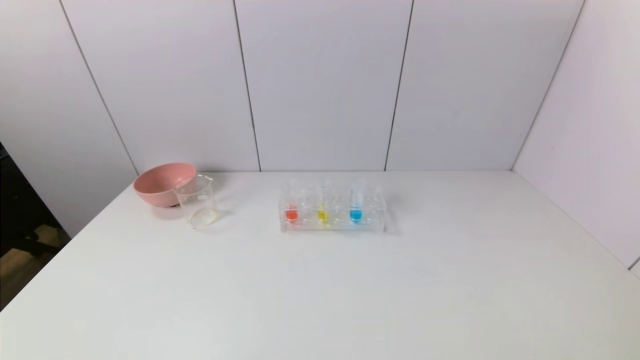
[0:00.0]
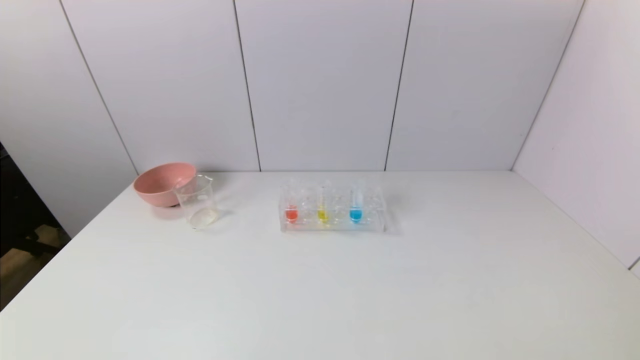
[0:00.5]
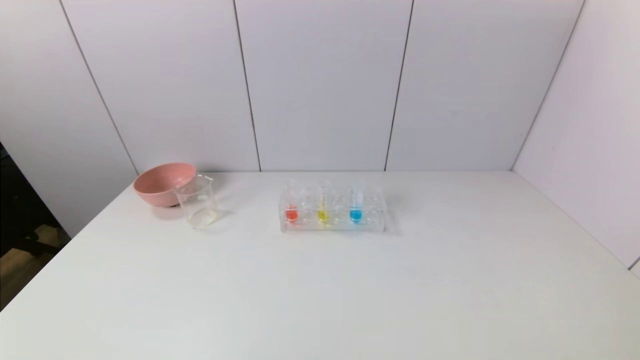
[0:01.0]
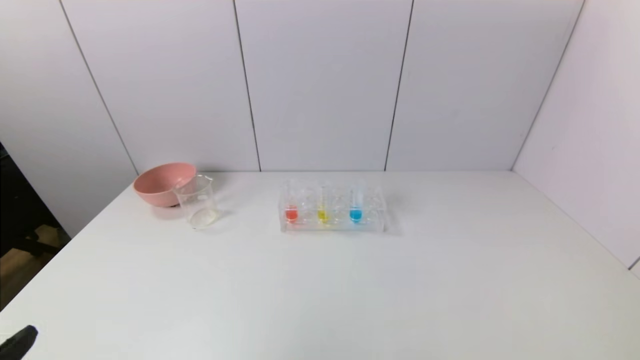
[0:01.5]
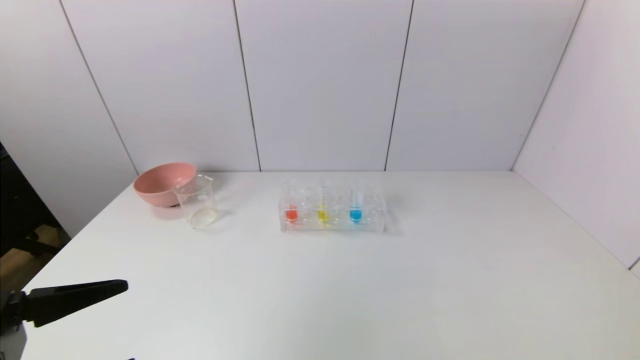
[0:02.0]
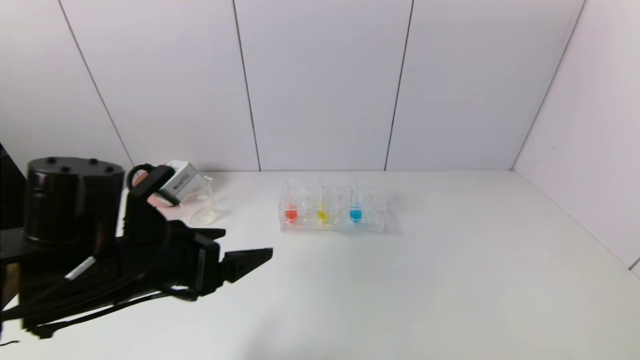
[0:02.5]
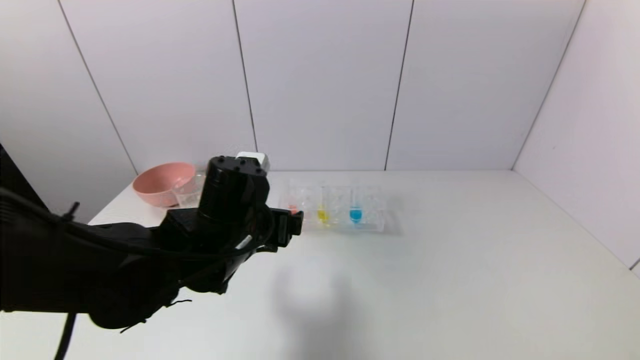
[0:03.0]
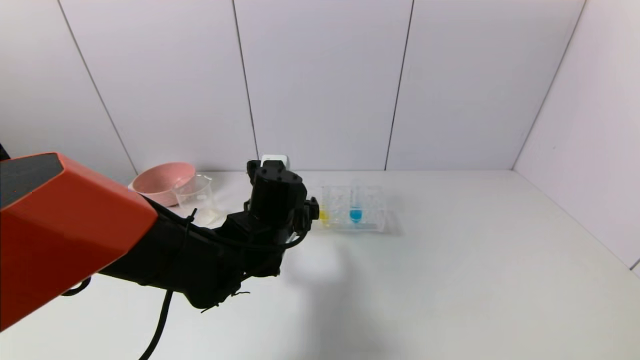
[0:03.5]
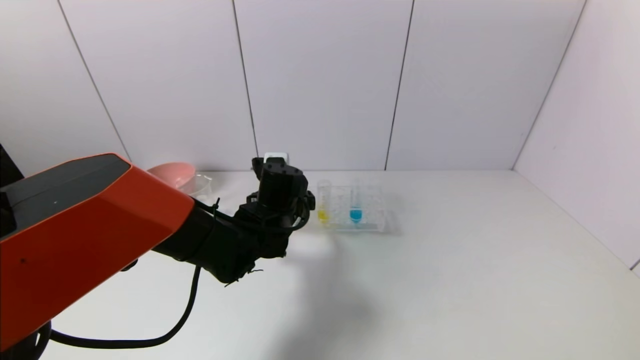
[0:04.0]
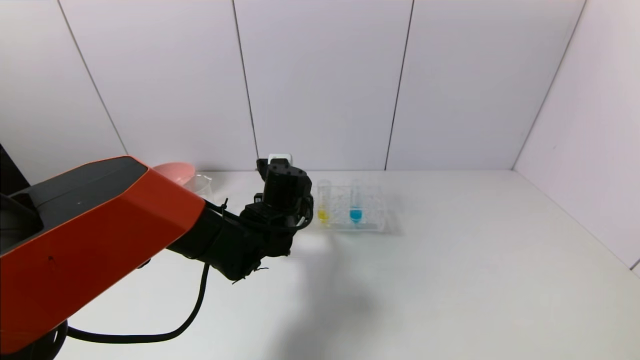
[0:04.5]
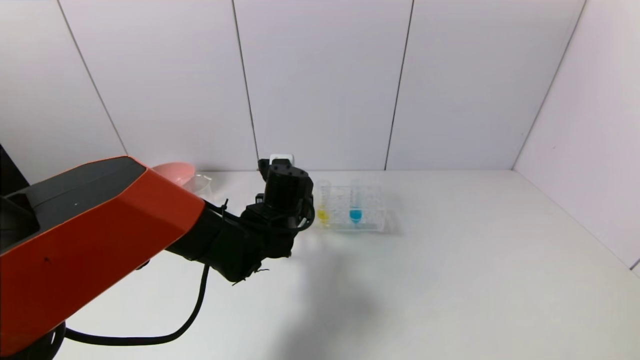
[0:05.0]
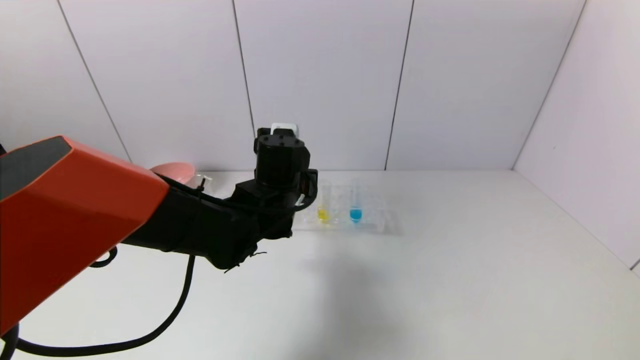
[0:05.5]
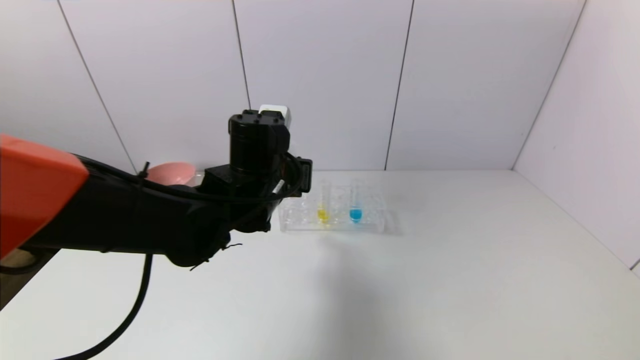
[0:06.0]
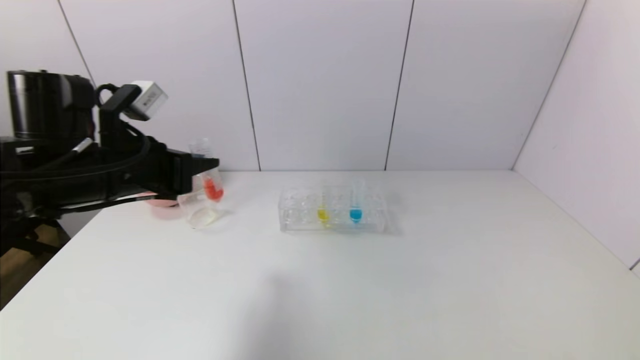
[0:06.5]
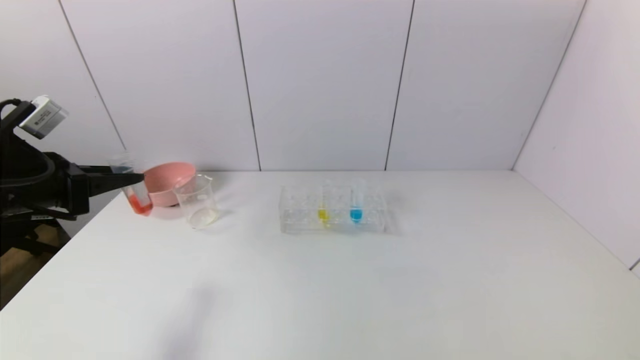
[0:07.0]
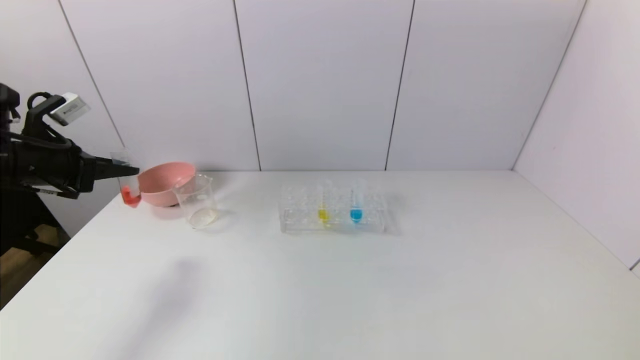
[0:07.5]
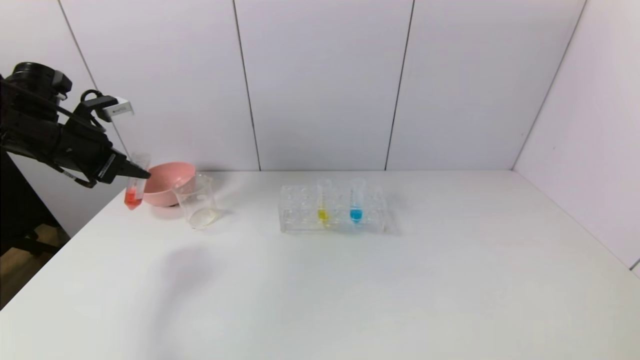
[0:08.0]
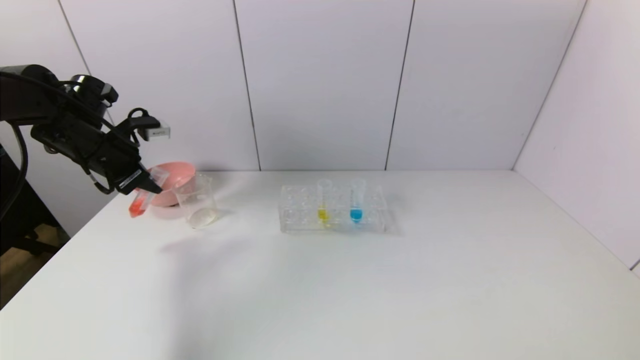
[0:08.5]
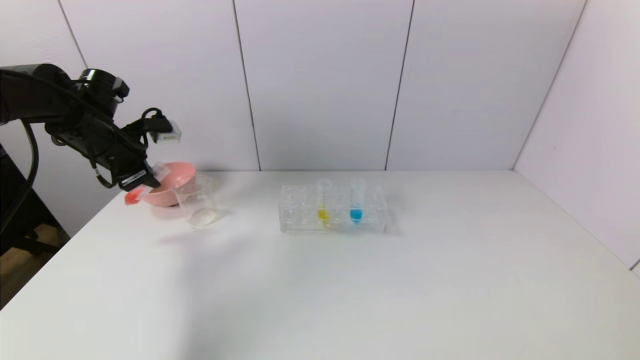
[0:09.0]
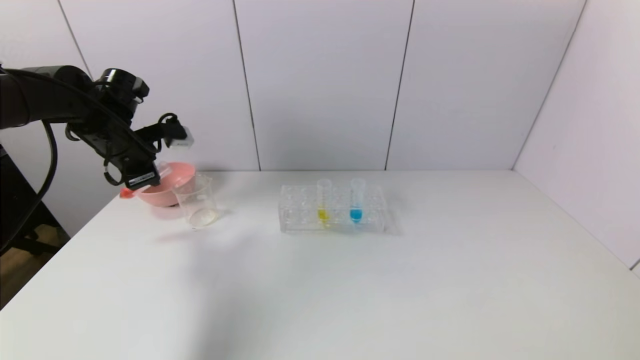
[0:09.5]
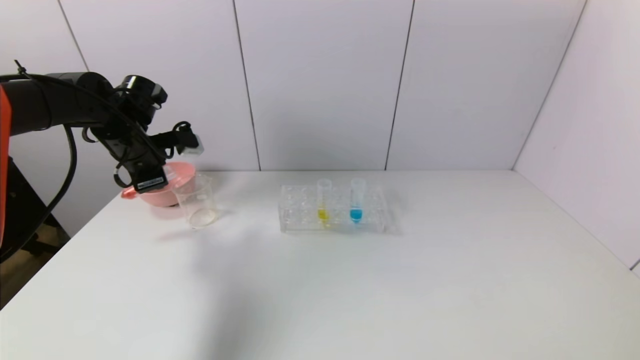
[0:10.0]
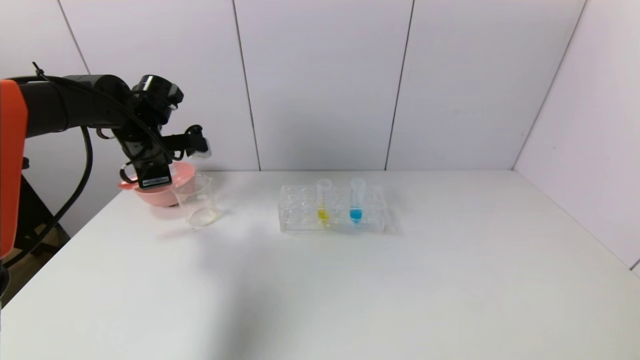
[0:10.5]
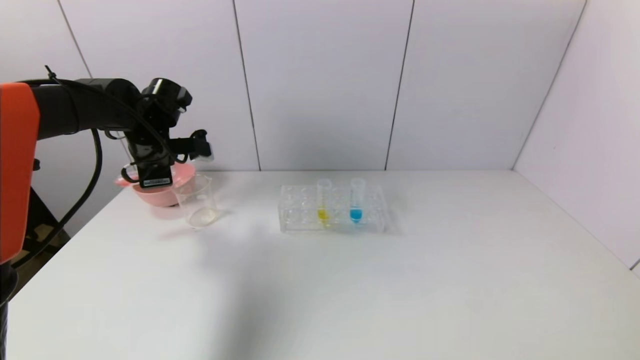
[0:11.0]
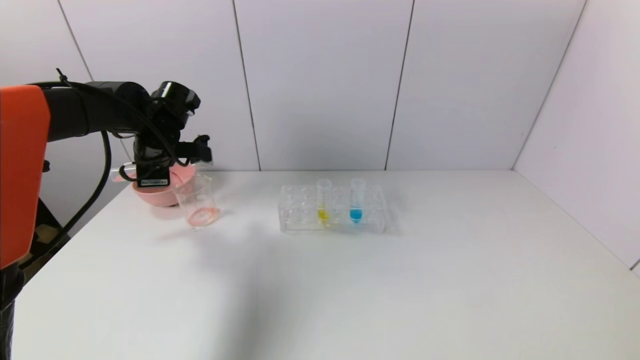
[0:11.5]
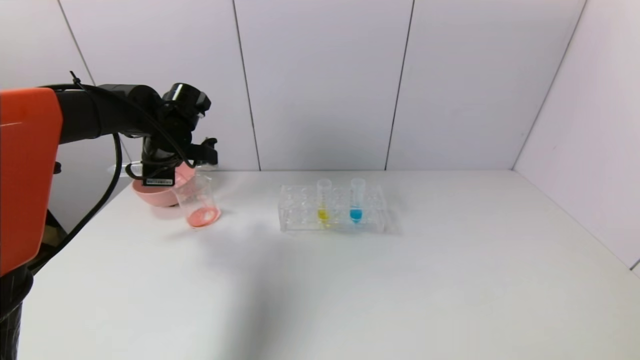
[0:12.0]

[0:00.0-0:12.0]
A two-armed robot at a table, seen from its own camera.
Task of the whole recording: pick up the test tube with yellow pigment and the test tube with red pigment by grippers and pour them into the beaker.
Step, 0:00.0 to 0:05.0: Grasp the red reagent with the left gripper.
0:00.0 to 0:02.0: The left gripper goes about 15 cm upward and forward.
0:02.0 to 0:04.0: The left gripper heads forward and to the right, covering some 35 cm.
0:04.0 to 0:06.0: The left gripper travels upward by some 10 cm, and closes its fingers.
0:06.0 to 0:08.0: The left gripper shifts roughly 30 cm to the left.
0:08.0 to 0:10.0: The left gripper travels to the right and forward by roughly 10 cm.
0:10.0 to 0:12.0: The left gripper changes place by some 5 cm.

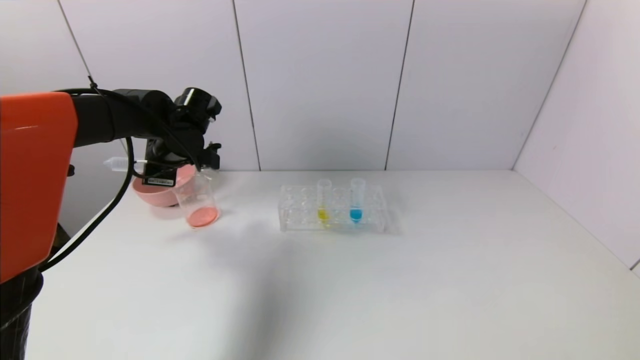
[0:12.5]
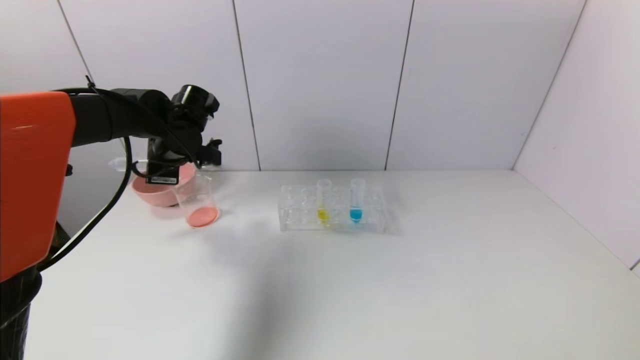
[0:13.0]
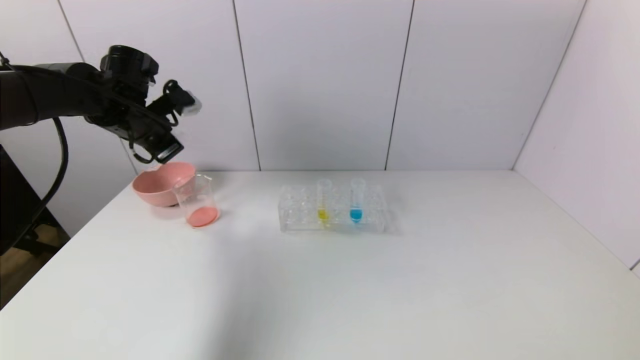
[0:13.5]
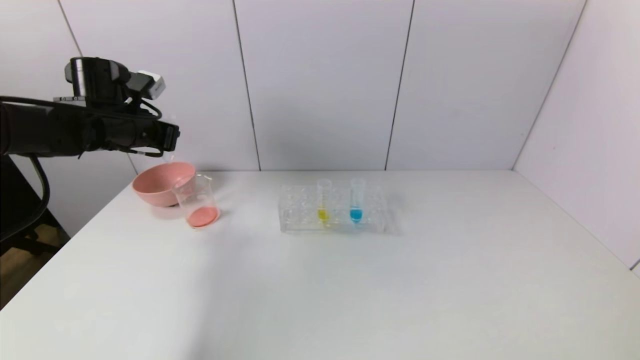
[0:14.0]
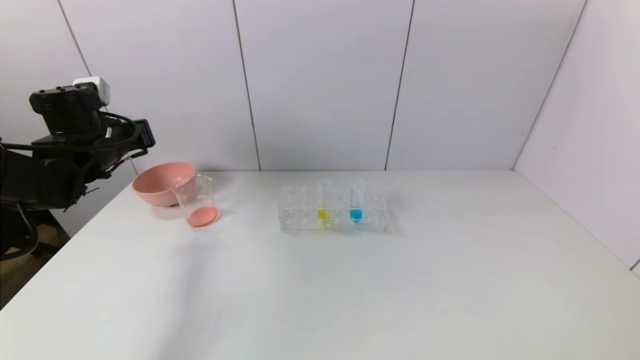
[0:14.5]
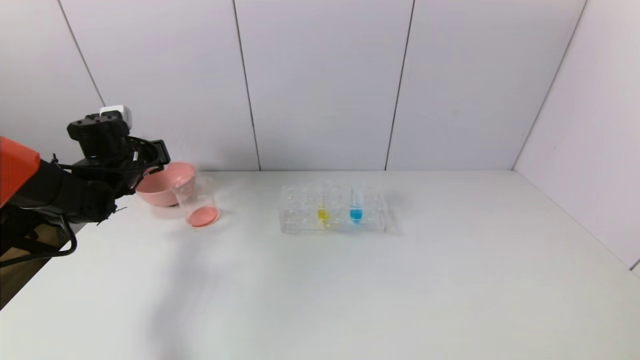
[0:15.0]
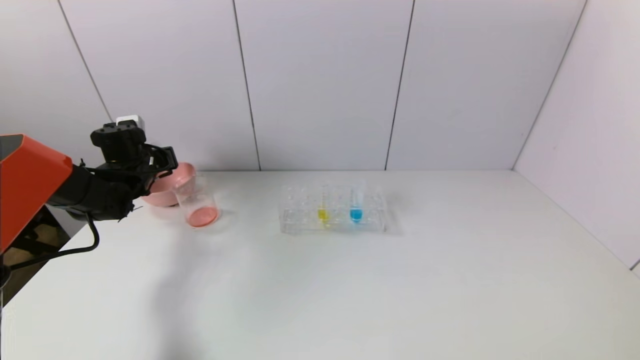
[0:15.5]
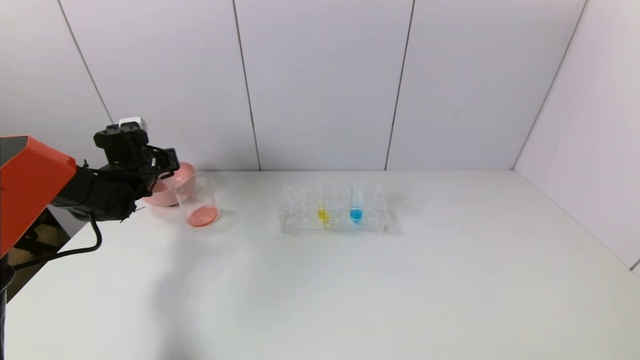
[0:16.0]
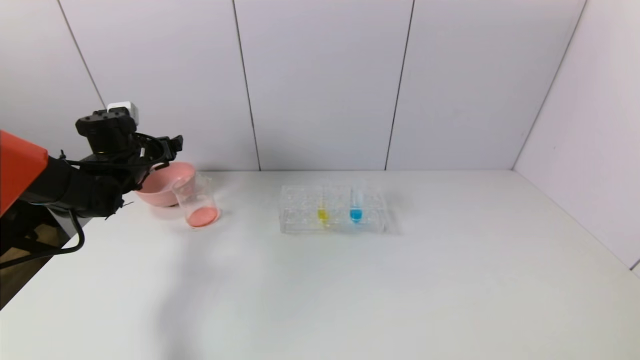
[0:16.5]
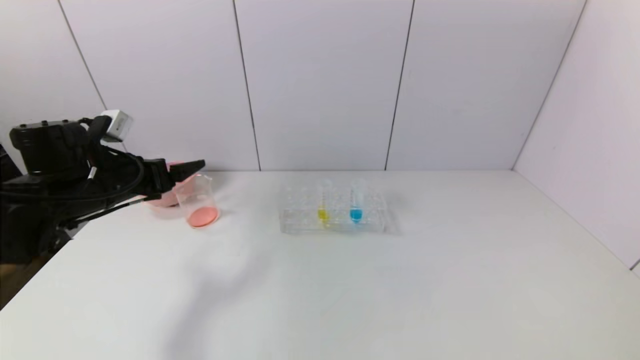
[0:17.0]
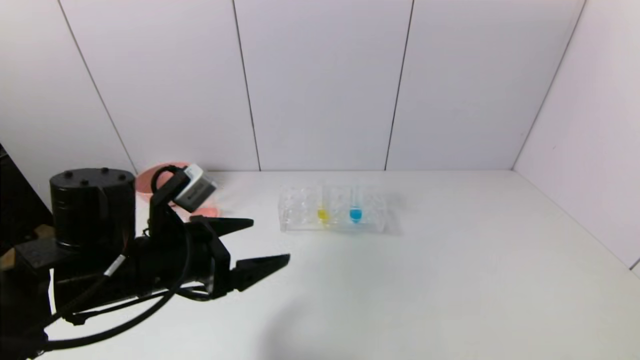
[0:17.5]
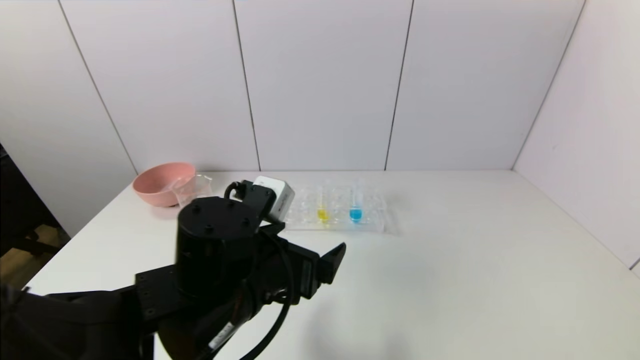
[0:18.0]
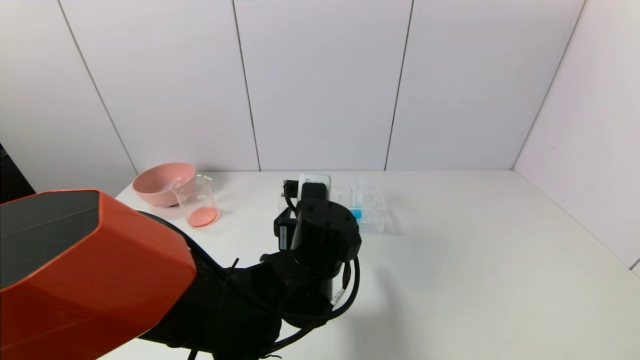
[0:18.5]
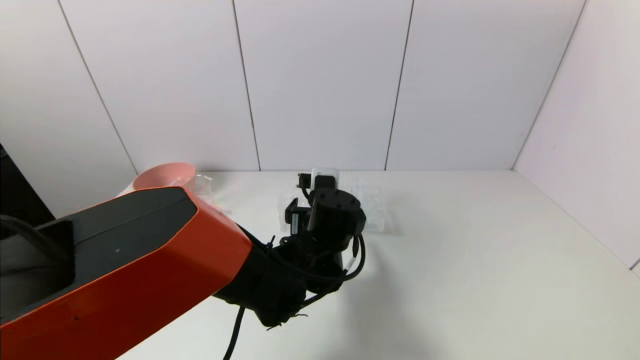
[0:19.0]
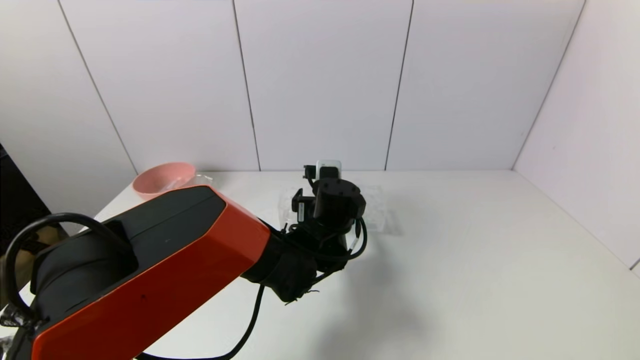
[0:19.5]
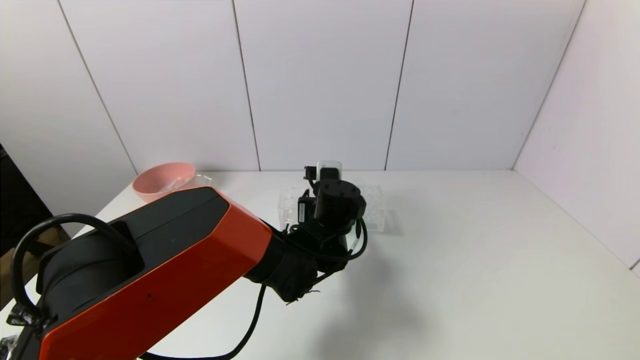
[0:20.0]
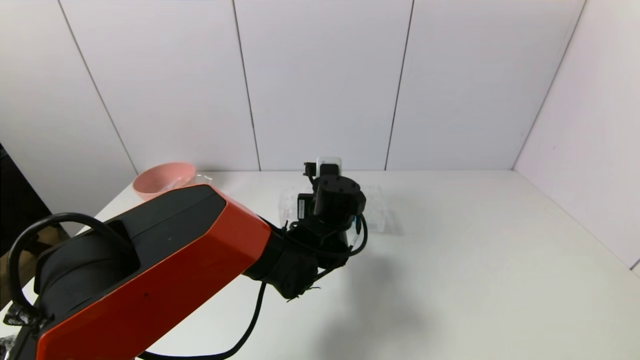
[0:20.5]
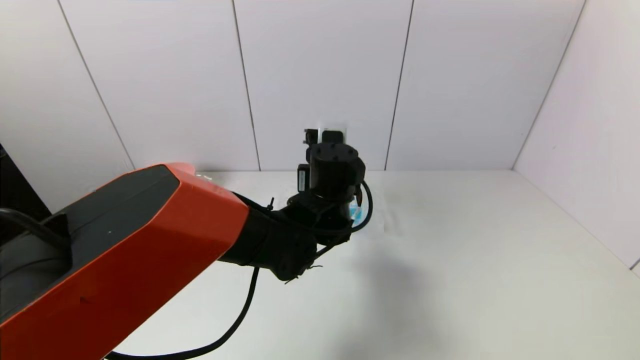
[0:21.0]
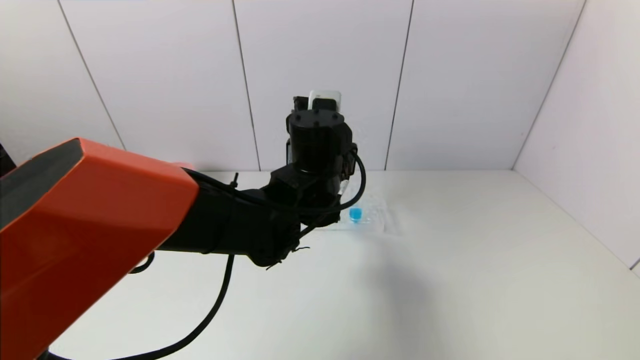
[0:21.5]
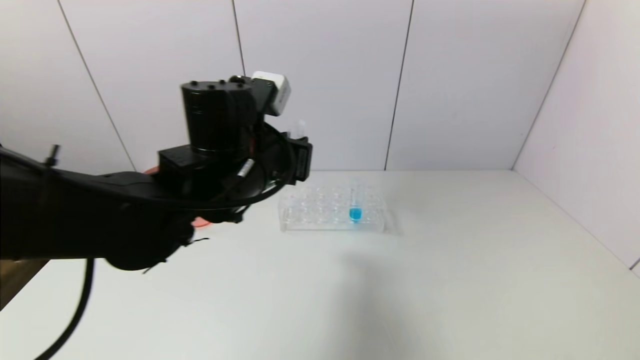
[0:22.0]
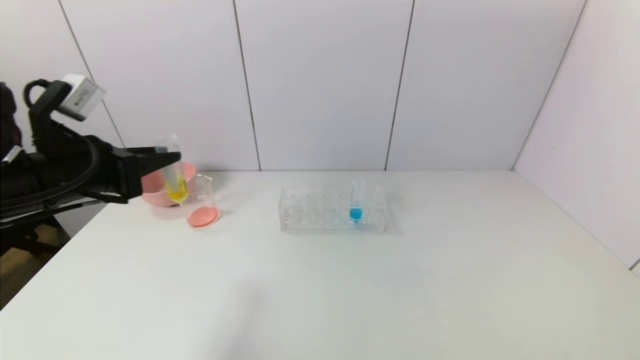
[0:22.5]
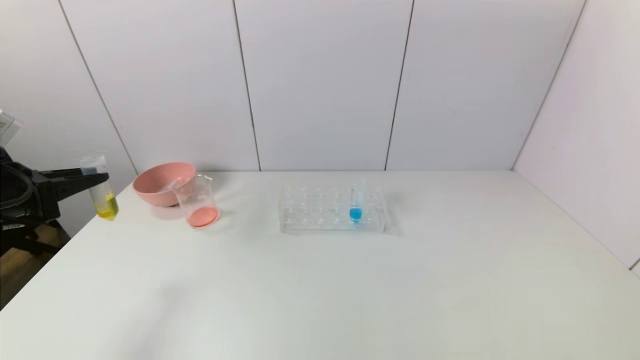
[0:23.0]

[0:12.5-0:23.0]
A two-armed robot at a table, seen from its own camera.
Task of the whole recording: pick up the test tube with yellow pigment and the test tube with red pigment by grippers and pour them into the beaker.
Step, 0:13.0 to 0:16.0: Place the test tube into the pink bowl with the left gripper.
Step, 0:16.5 to 0:20.0: Grasp the yellow reagent with the left gripper.
0:12.5 to 0:14.5: The left gripper travels to the left by some 10 cm.
0:14.5 to 0:16.5: The left gripper opens up.
0:16.5 to 0:19.0: The left gripper goes roughly 35 cm to the right.
0:19.0 to 0:21.0: The left gripper moves upward, about 5 cm, and closes its fingers.
0:21.0 to 0:23.0: The left gripper heads to the left, covering roughly 40 cm.
